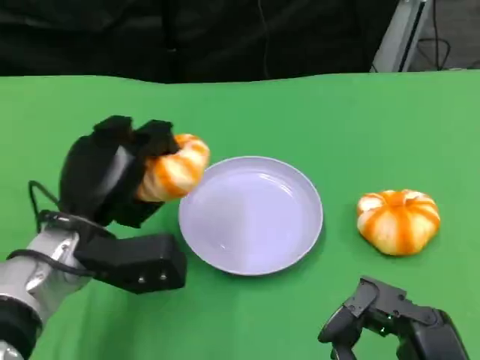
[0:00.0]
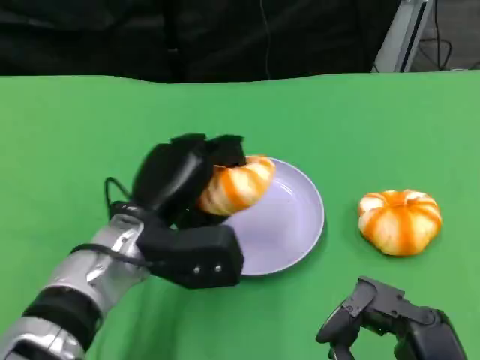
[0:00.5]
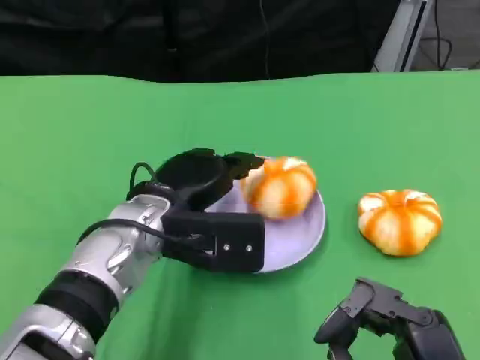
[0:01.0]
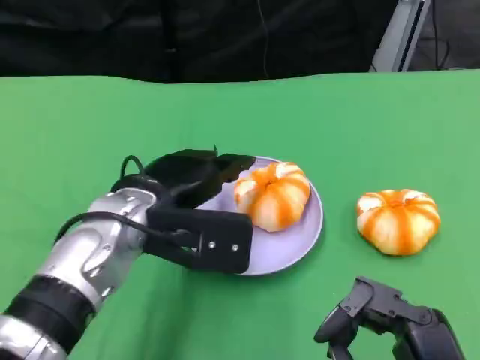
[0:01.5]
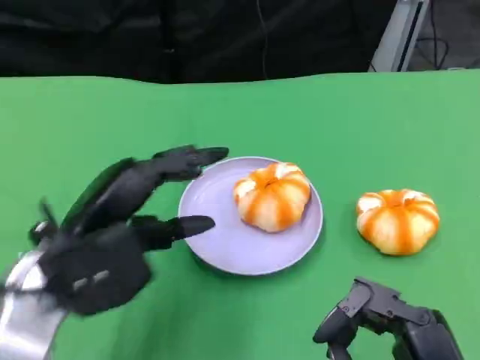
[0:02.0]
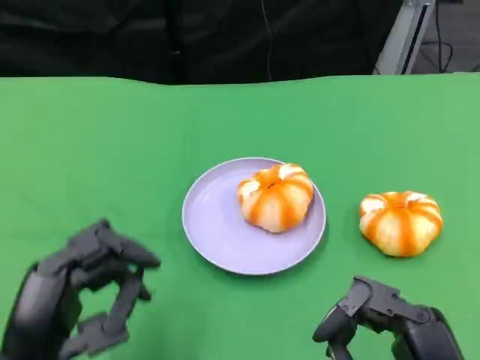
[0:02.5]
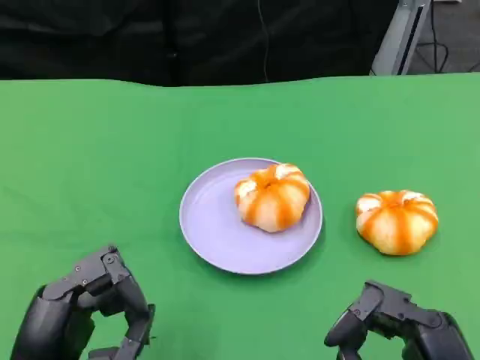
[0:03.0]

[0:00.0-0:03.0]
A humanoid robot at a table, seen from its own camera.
Task of the whole recording: Grasp the bread from the table and place it into the plate.
0:00.0 to 0:01.5: The left hand moves approximately 5 cm.
0:01.5 to 0:03.0: The left hand moves backward and to the left, about 20 cm.
